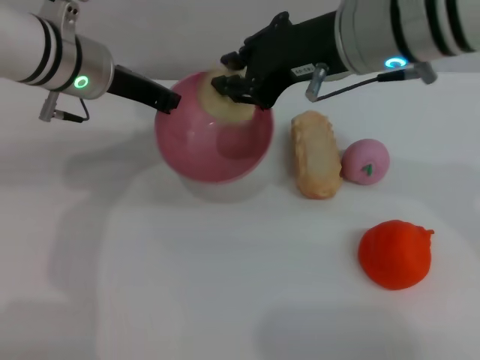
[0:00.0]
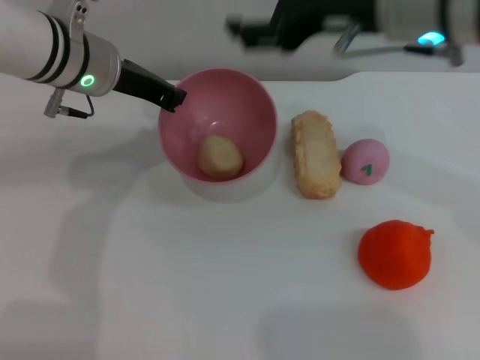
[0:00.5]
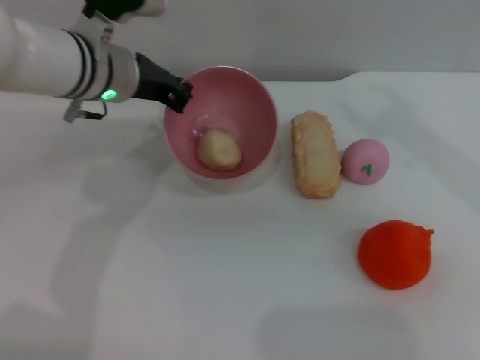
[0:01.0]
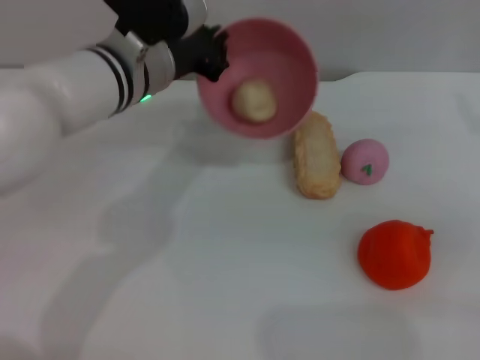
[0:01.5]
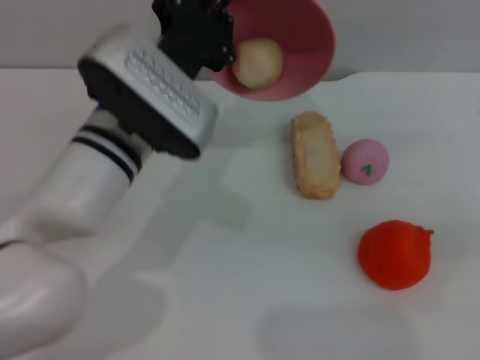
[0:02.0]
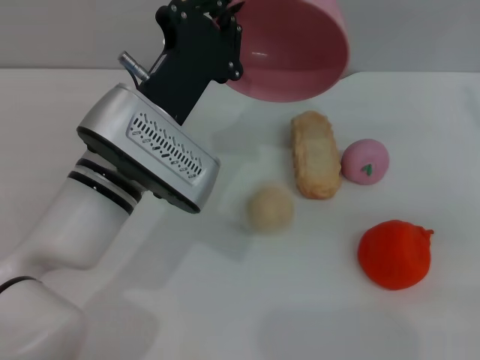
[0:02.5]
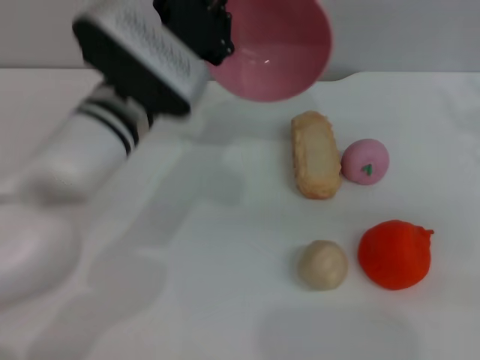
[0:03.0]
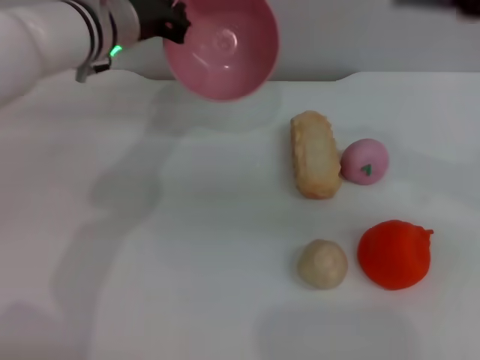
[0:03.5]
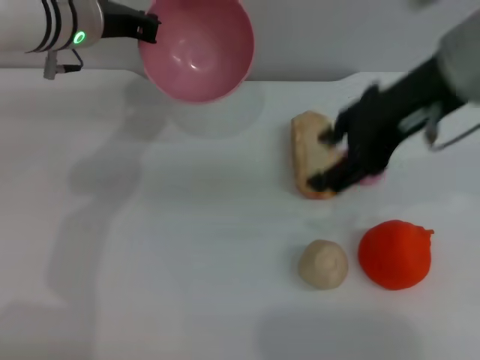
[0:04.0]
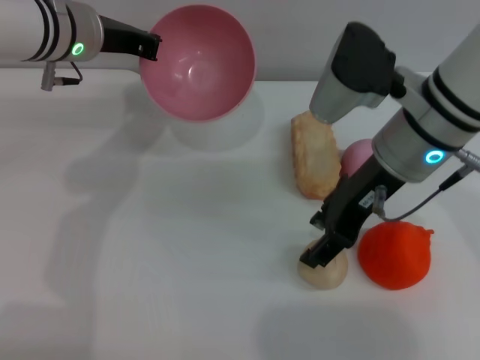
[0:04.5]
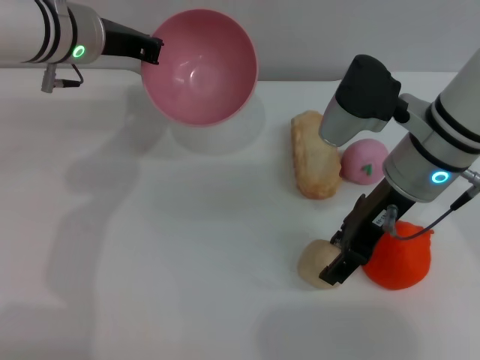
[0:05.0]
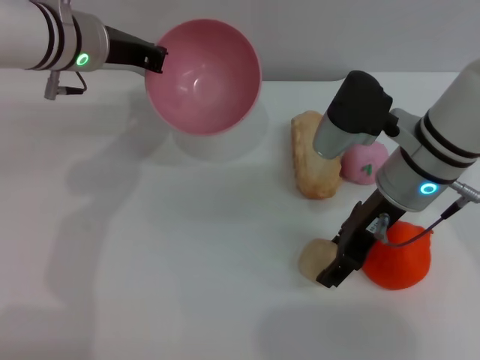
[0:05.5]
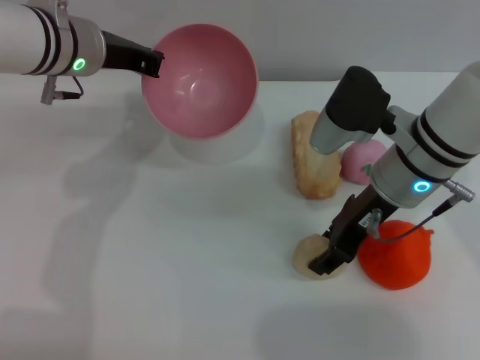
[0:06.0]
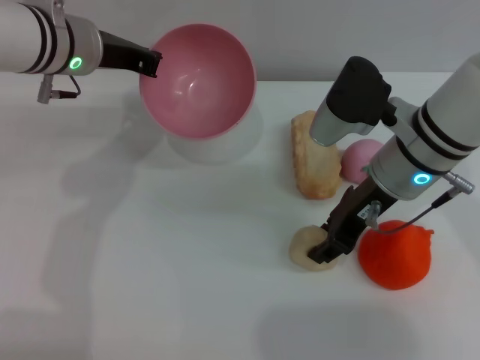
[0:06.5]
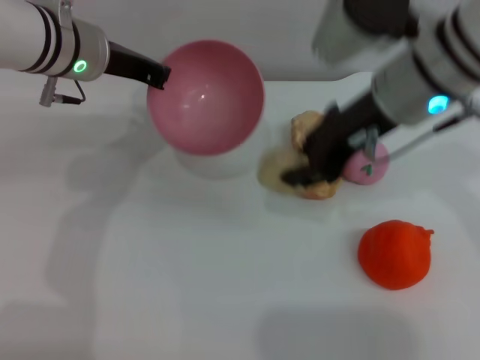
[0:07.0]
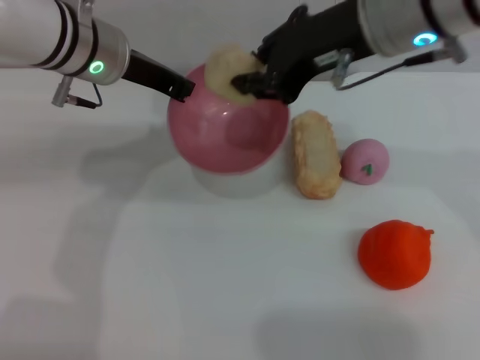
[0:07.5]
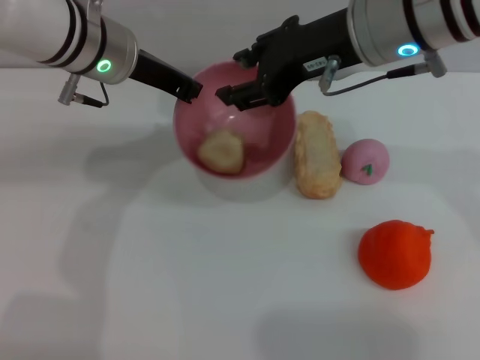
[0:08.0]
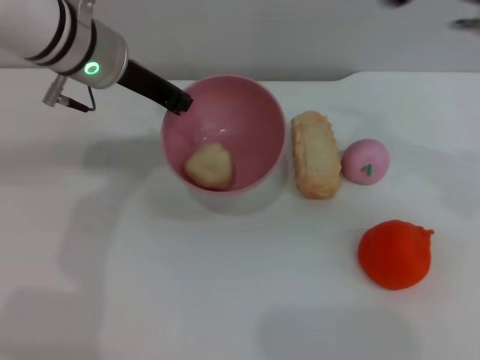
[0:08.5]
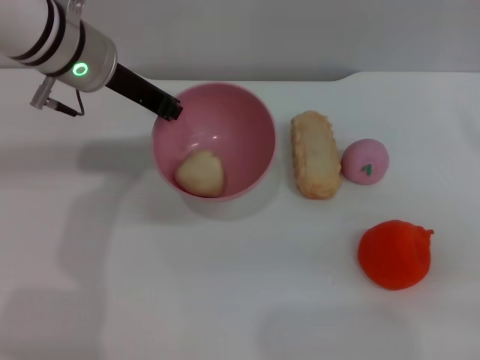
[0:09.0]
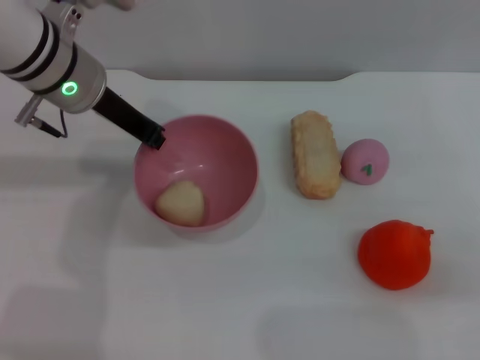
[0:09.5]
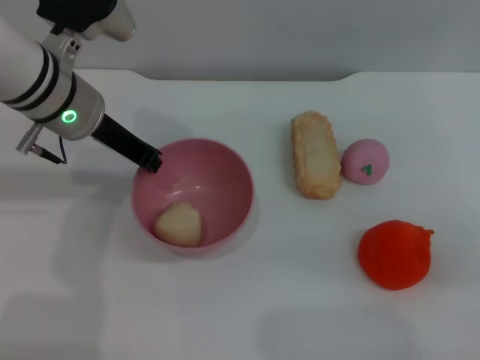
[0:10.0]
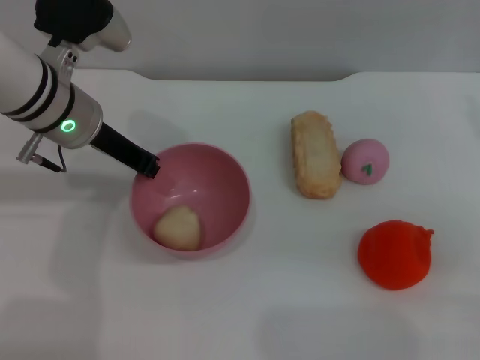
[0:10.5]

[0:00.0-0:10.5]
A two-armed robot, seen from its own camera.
Task of the whole recording: put the egg yolk pastry into the pink bowl and pour it out repeatedly.
Step, 0:01.0 to 0:02.5: Pour the egg yolk pastry out of bowl.
Step, 0:03.0 to 0:06.5: Pick up the egg yolk pastry with the right gripper.
Step, 0:07.0 to 0:08.0: Place the egg yolk pastry into the bowl.
0:00.0 to 0:02.0: The left gripper moves backward and to the right, some 10 cm; the right gripper travels to the right by some 25 cm, and opens up.
0:02.0 to 0:04.0: The left gripper shifts approximately 15 cm forward, to the left and upward. Meanwhile the right gripper travels to the left and upward by some 25 cm.
0:04.0 to 0:06.5: The right gripper moves downward, some 15 cm, and closes.
0:06.5 to 0:08.5: The right gripper moves upward and to the right, approximately 15 cm.
0:08.5 to 0:10.5: The right gripper moves to the right and downward, about 15 cm, while the left gripper shifts by some 5 cm.

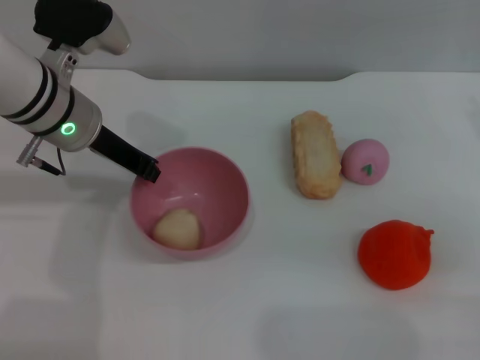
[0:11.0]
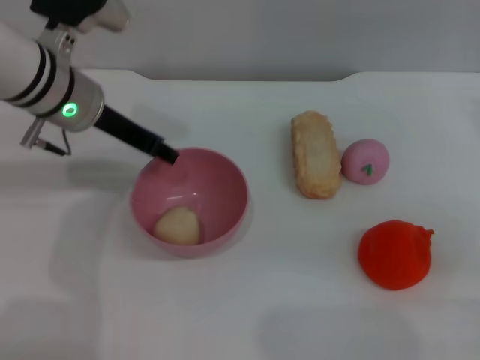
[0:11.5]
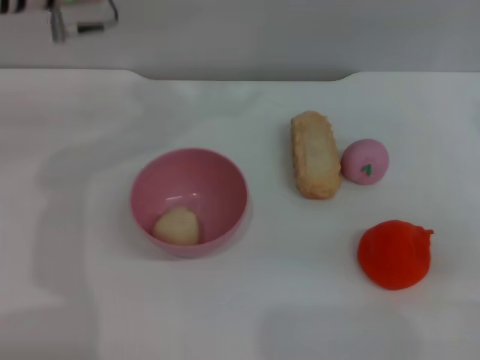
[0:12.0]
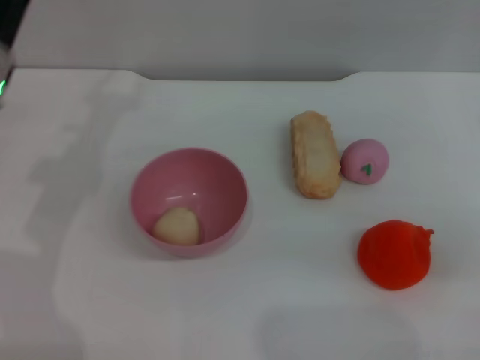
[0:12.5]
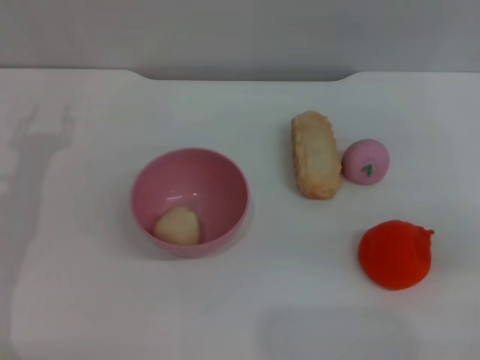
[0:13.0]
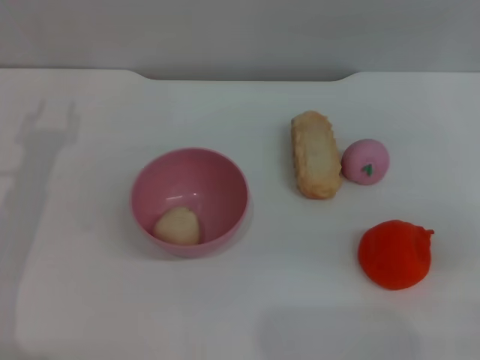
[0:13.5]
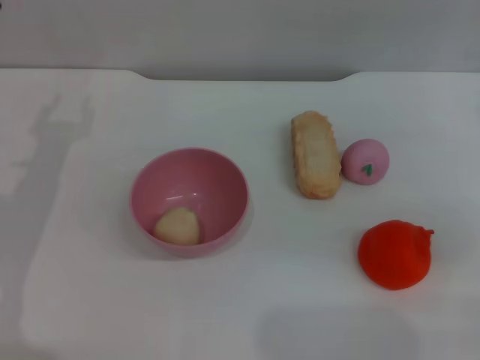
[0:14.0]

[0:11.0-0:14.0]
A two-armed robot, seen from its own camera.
Task of the whole recording: put the egg yolk pastry into the pink bowl and pour it out repeatedly.
0:11.0 to 0:12.5: The left gripper shifts approximately 5 cm to the left, moves approximately 10 cm upward and comes back, and opens its fingers.
0:12.5 to 0:14.0: The left gripper shifts by approximately 5 cm.
